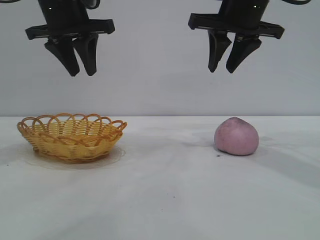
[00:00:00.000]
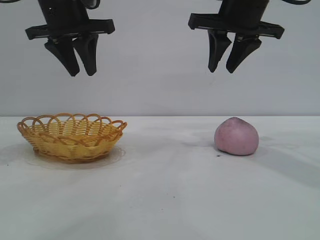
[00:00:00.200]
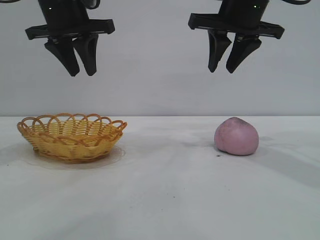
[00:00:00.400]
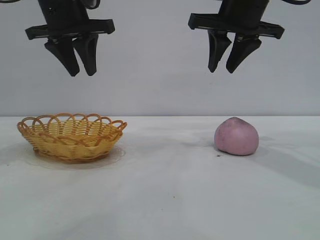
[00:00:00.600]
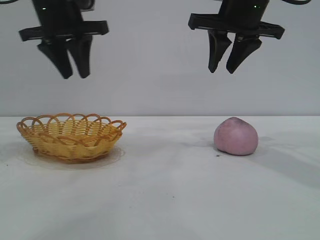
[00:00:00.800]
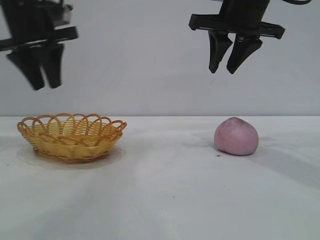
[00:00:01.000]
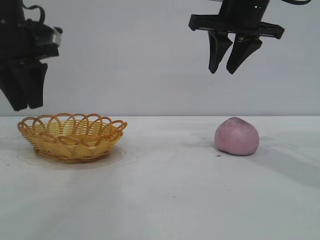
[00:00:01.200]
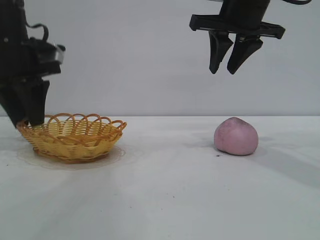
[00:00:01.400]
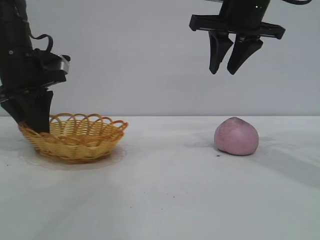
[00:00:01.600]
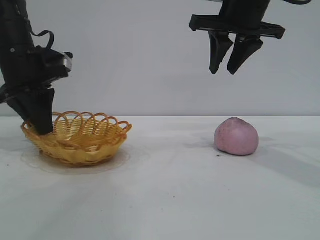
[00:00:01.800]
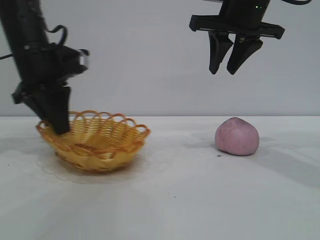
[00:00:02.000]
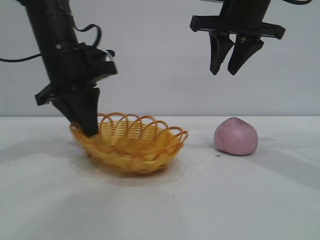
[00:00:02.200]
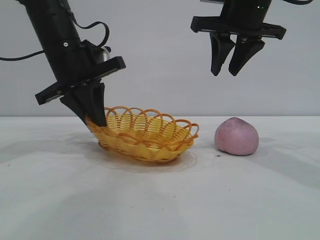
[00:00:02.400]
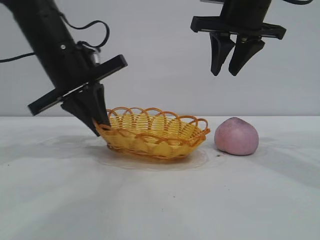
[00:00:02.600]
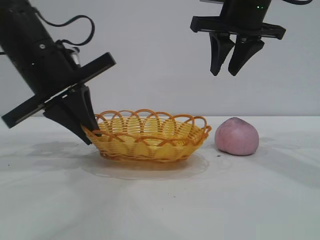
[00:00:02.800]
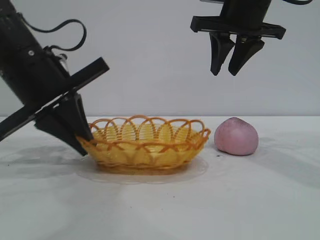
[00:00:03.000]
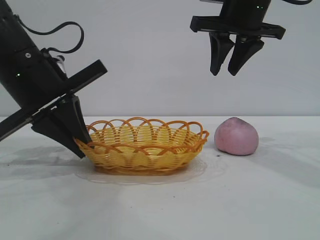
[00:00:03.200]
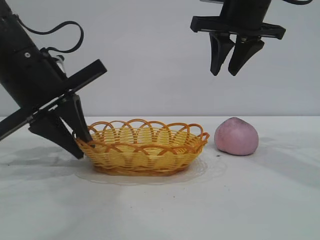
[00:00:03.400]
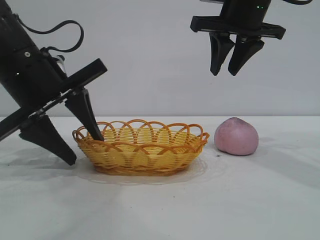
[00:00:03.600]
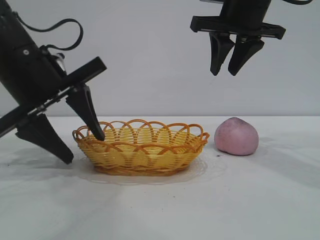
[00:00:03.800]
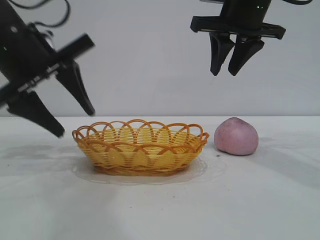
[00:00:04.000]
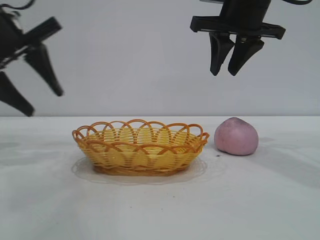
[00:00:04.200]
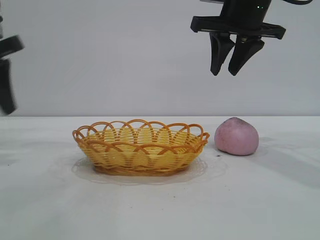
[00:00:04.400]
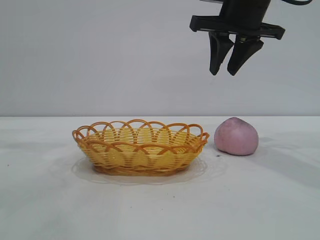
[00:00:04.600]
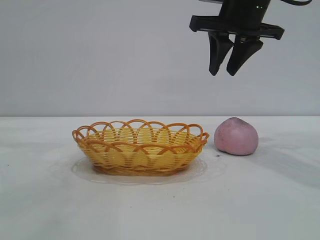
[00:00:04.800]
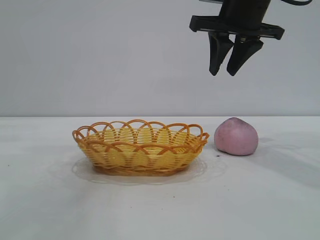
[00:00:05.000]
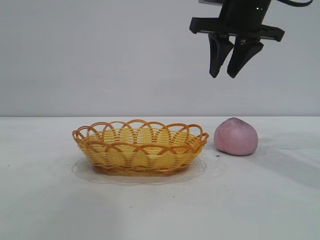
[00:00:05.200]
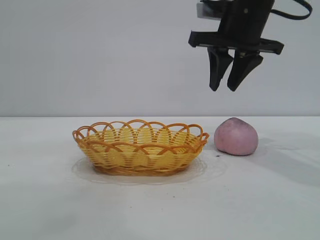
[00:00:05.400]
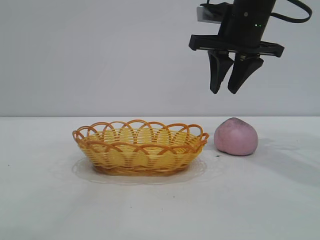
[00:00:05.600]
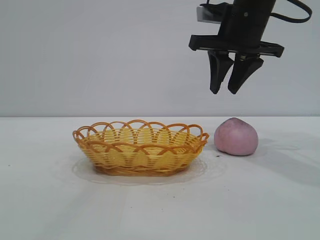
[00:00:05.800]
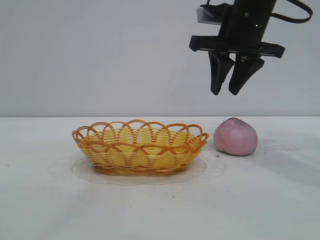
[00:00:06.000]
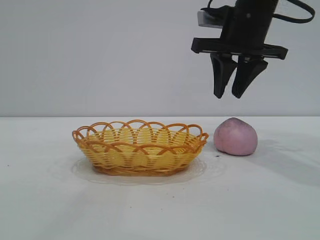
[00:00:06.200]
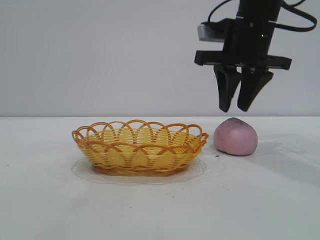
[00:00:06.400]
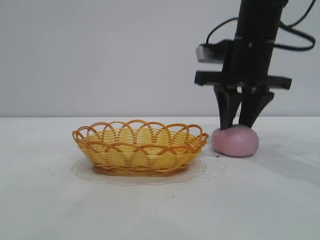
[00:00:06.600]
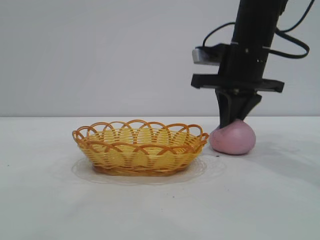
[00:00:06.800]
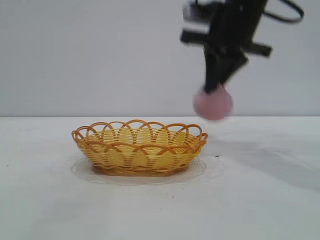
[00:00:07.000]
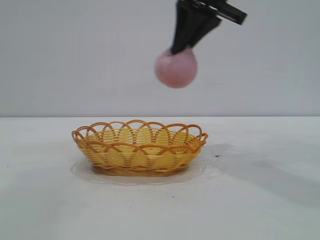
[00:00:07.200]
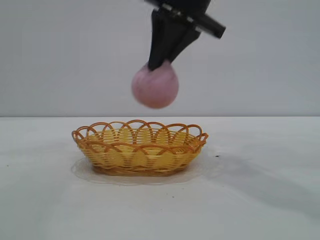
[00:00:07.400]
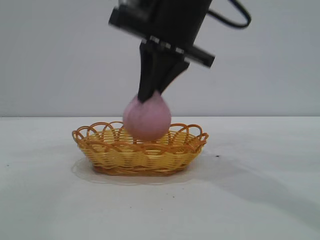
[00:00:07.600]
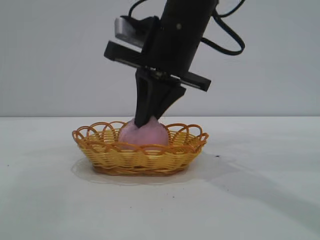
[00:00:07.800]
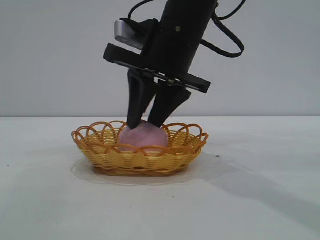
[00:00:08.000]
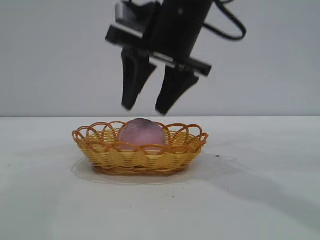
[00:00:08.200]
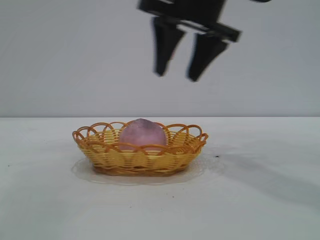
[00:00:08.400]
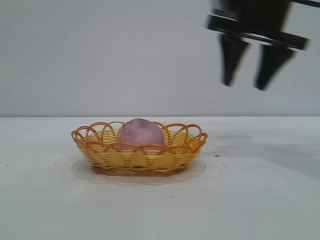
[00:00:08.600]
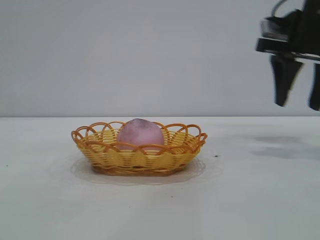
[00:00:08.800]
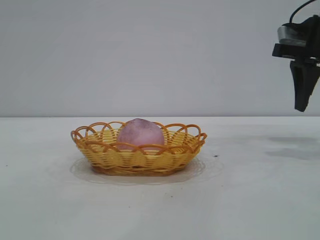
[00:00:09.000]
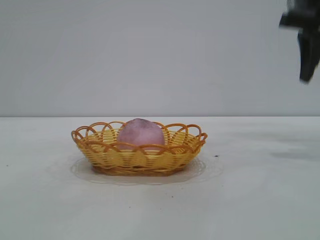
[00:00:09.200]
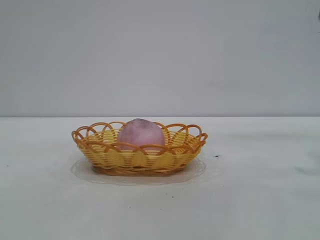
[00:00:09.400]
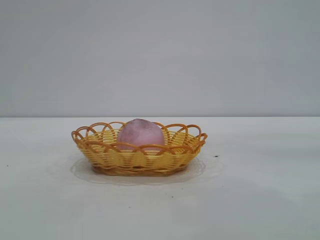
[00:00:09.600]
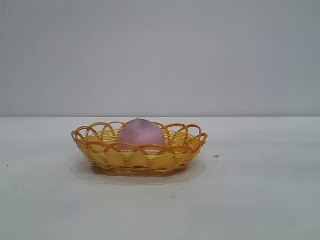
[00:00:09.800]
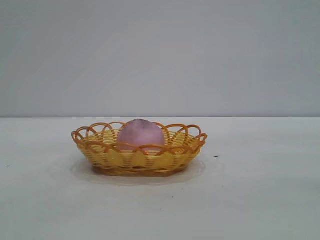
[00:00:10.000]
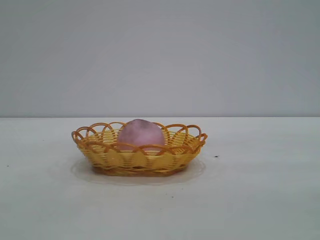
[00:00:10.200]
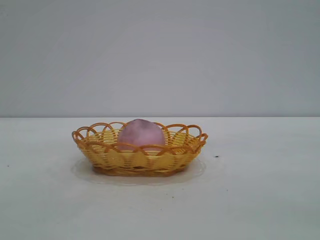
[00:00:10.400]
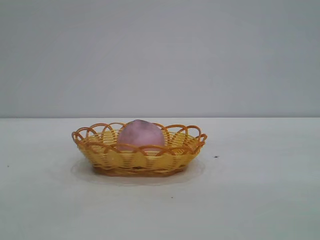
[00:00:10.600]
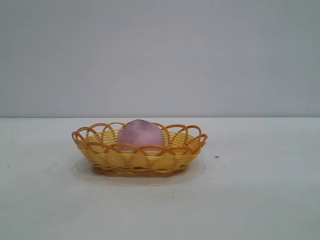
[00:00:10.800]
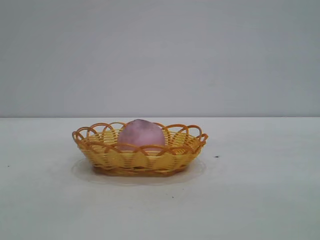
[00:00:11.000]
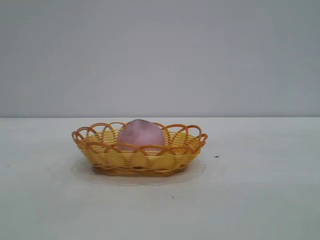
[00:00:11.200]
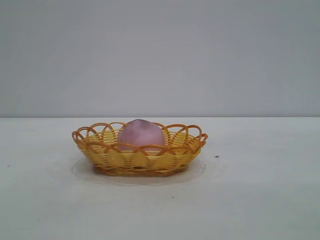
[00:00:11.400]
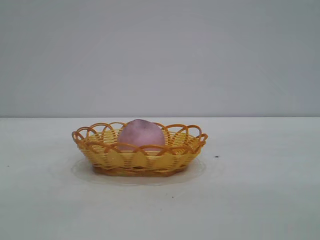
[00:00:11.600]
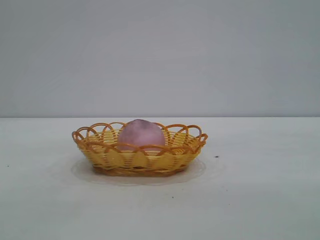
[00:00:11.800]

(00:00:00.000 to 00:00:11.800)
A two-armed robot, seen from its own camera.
Task of the whole recording: pick up the peach and put it into the basket.
Step, 00:00:00.000 - 00:00:04.000: Move the basket to the center of view.
Step, 00:00:04.200 - 00:00:06.800: Pick up the peach.
Step, 00:00:07.000 - 00:00:08.200: place the peach into the basket.
